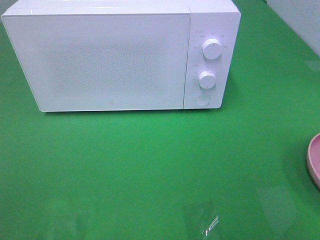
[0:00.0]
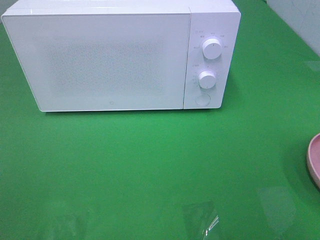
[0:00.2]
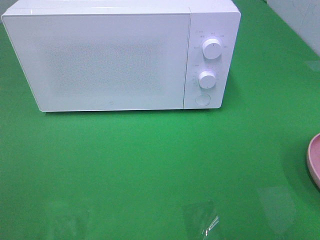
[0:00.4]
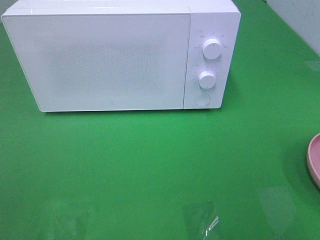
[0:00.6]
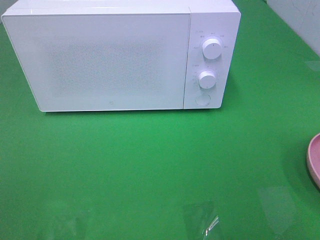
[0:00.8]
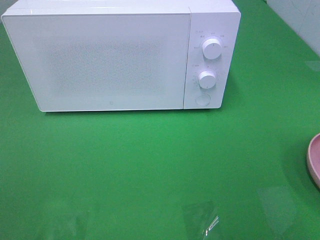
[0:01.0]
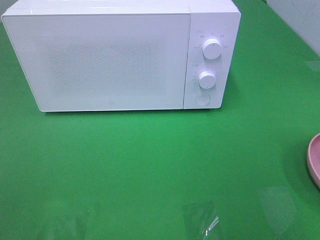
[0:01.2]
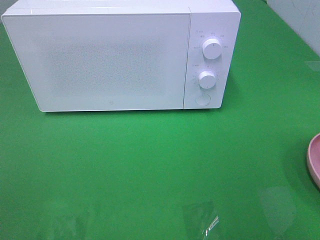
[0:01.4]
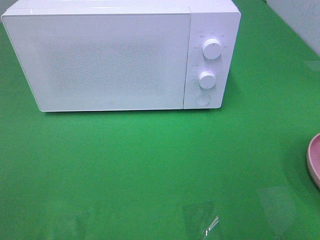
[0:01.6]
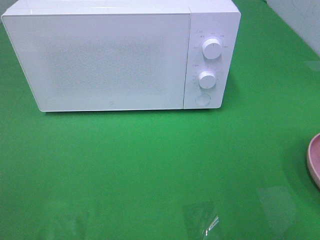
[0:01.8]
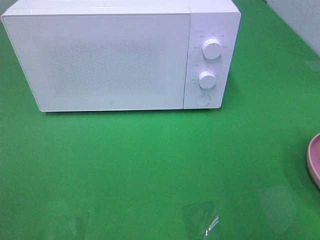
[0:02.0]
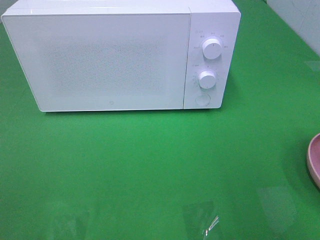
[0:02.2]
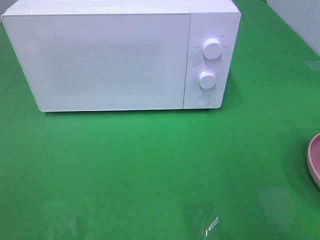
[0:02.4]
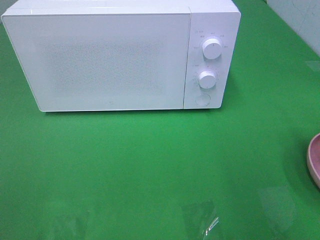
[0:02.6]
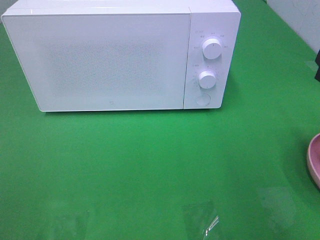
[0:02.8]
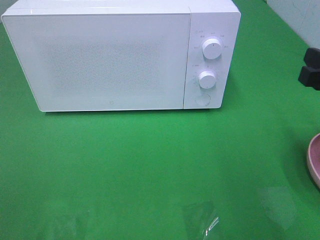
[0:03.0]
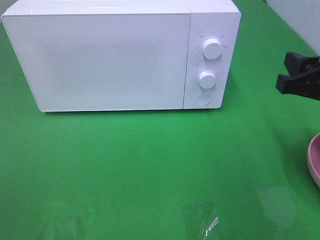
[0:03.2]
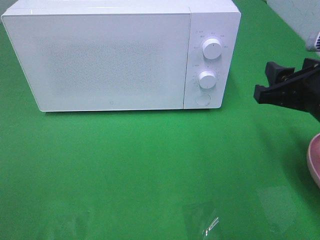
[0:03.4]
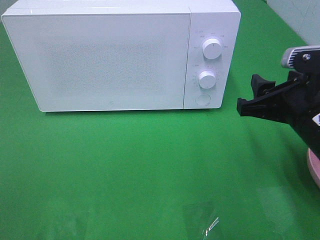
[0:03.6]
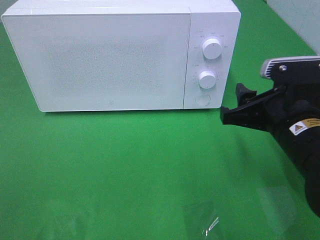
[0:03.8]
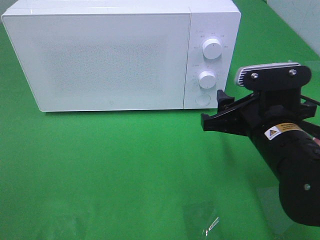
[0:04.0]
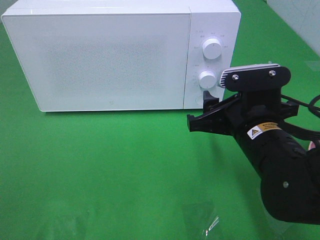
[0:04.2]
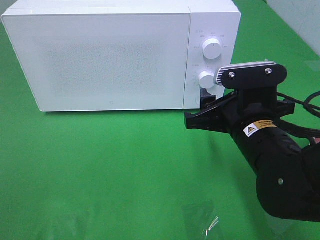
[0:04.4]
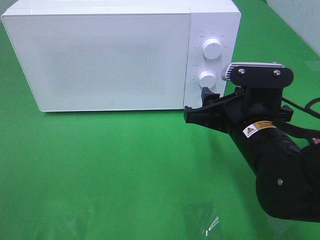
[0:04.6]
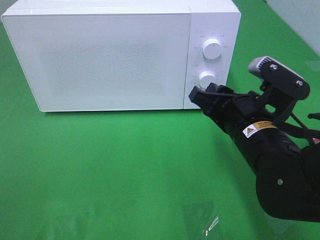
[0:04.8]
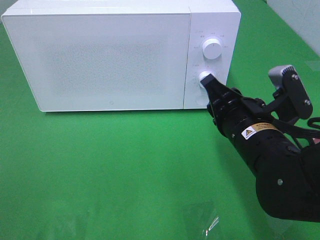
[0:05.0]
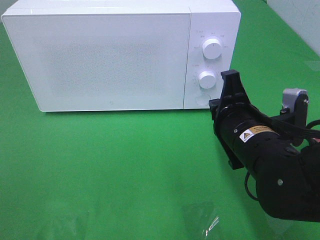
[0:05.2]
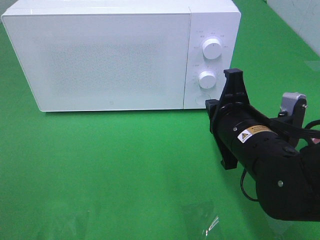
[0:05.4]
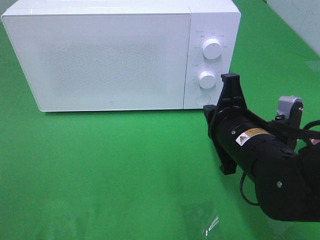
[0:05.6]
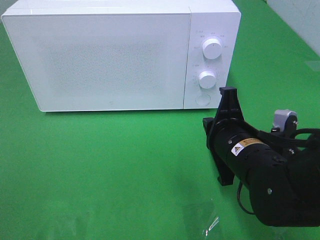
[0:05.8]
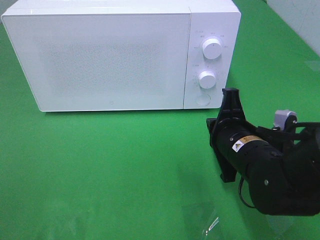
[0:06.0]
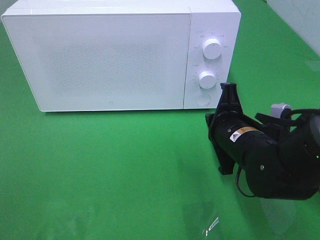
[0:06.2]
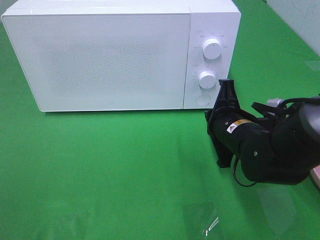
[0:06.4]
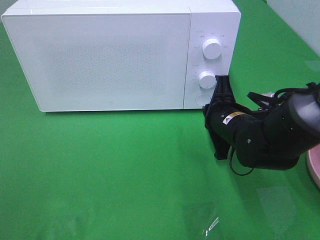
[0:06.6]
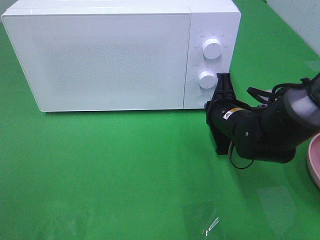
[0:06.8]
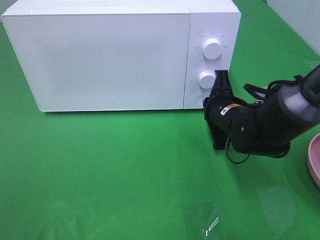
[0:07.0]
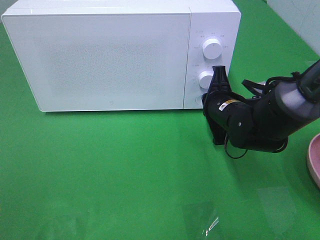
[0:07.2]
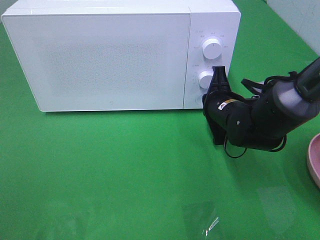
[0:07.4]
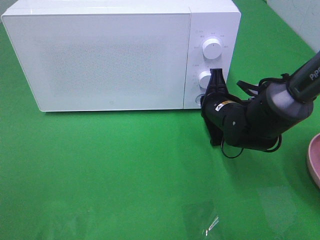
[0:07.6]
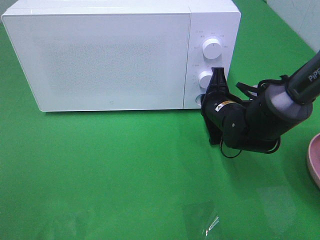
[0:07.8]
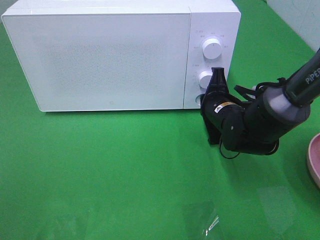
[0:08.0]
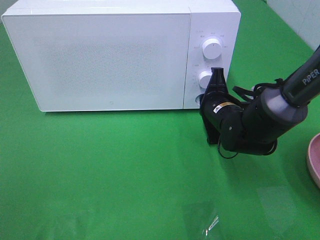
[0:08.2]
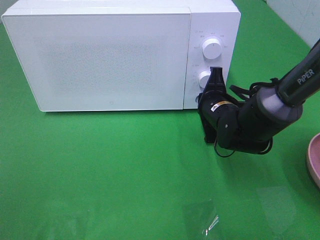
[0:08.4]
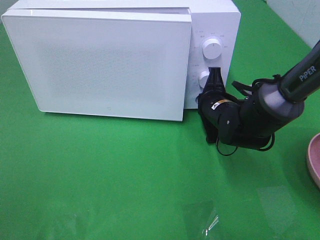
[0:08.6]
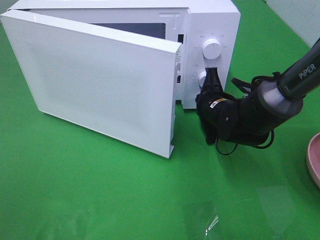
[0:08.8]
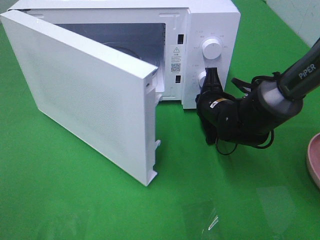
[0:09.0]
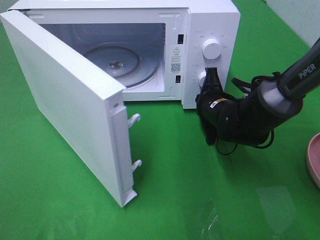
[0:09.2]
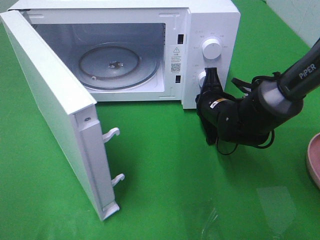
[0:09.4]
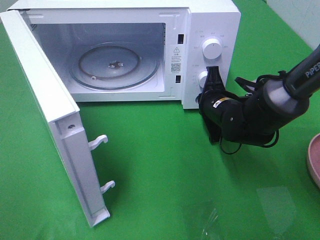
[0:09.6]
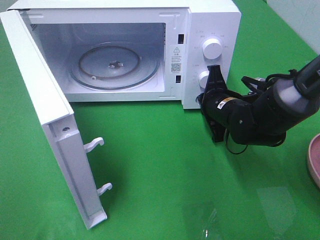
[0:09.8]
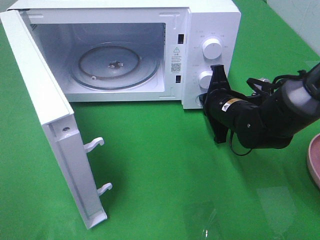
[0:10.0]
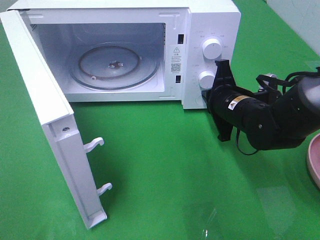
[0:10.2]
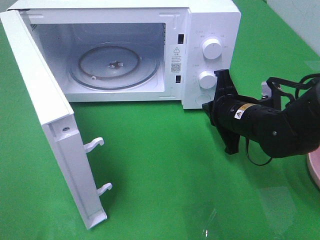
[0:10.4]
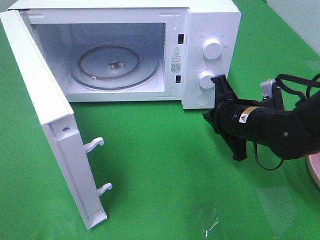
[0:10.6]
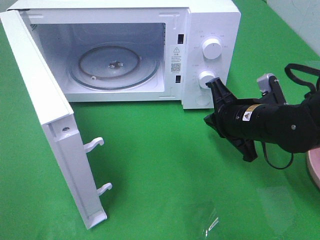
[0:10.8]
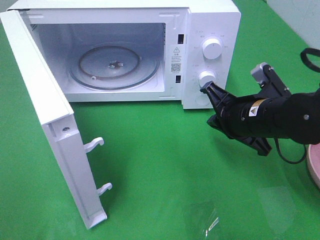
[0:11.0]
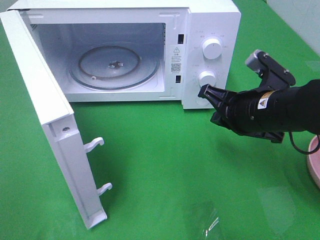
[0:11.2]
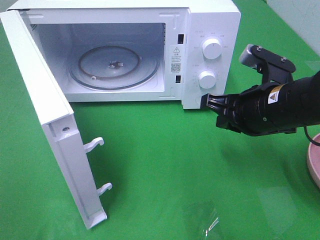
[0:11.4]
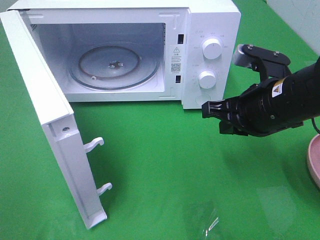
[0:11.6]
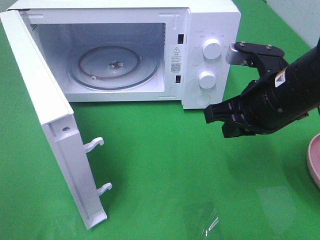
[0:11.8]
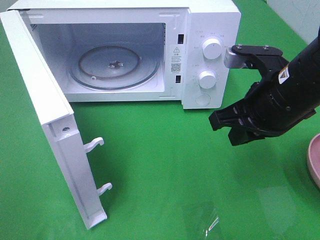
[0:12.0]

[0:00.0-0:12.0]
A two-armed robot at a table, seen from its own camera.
Task of the whole recording: Heat the burger.
Step, 0:00.0 to 0:10.0: Right hand: press the switch.
0:01.6 to 0:03.0: The right gripper goes some 15 cm forward.
0:03.0 to 0:04.4: The right gripper heads to the left and downward, covering roughly 15 cm.
0:04.4 to 0:06.0: The right gripper closes.
0:06.0 to 0:07.6: The right gripper moves forward, about 10 cm.
0:09.0 to 0:10.4: The right gripper travels backward by approximately 5 cm.
0:10.4 to 0:12.0: The right gripper heads upward and backward, covering about 10 cm.

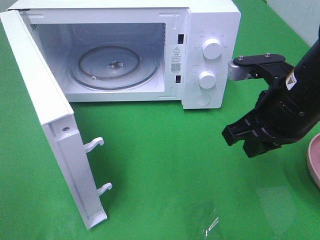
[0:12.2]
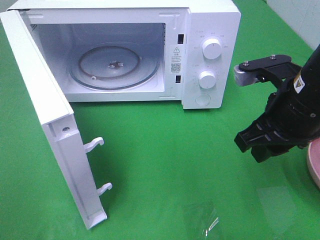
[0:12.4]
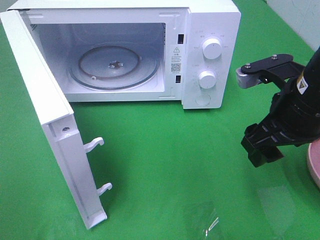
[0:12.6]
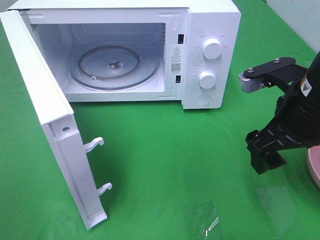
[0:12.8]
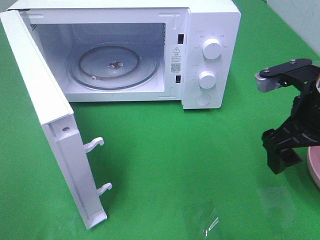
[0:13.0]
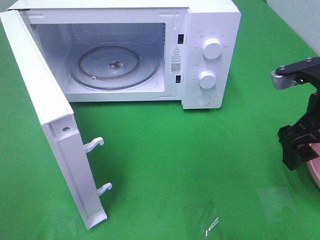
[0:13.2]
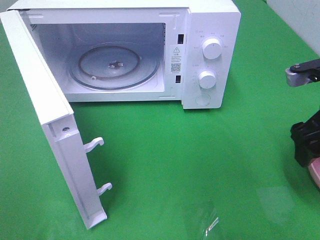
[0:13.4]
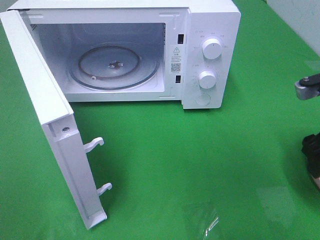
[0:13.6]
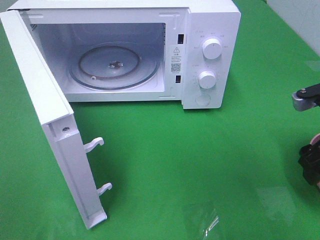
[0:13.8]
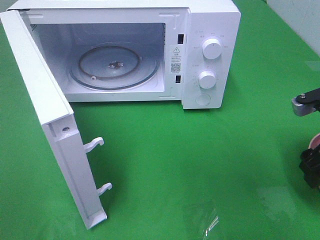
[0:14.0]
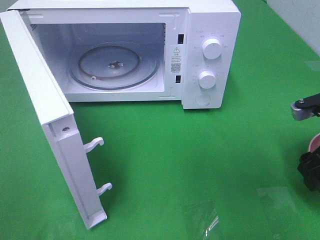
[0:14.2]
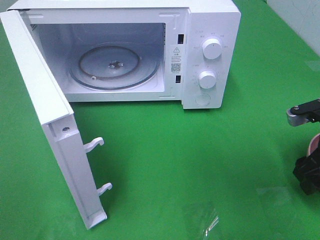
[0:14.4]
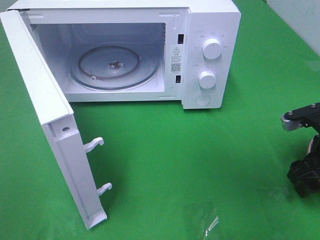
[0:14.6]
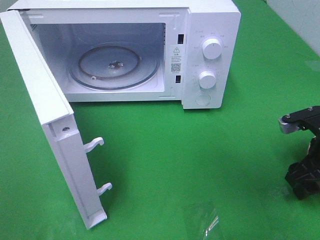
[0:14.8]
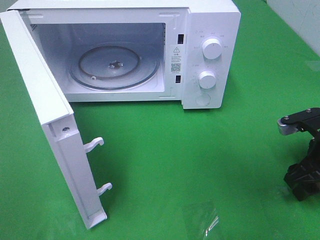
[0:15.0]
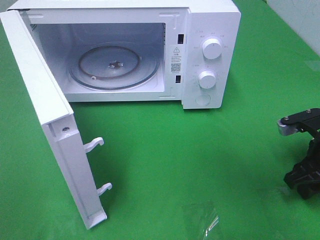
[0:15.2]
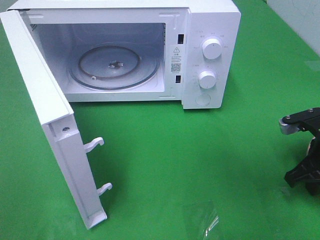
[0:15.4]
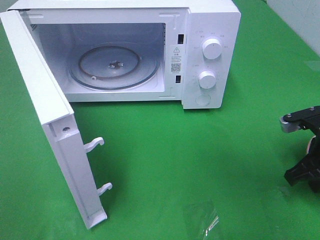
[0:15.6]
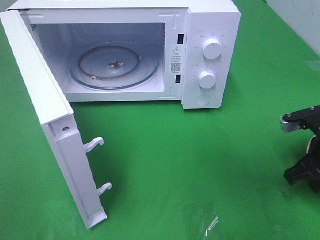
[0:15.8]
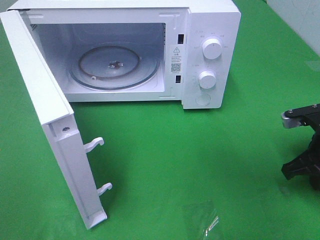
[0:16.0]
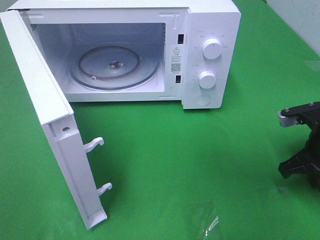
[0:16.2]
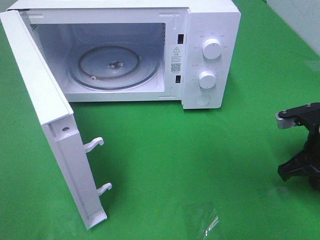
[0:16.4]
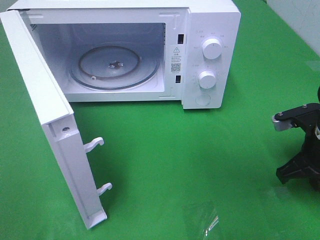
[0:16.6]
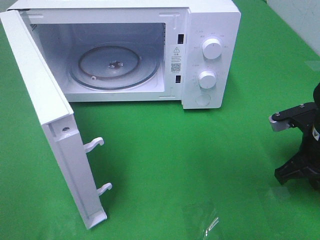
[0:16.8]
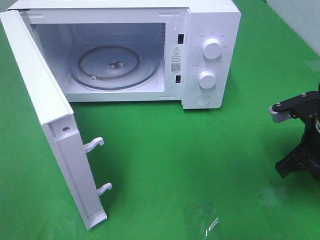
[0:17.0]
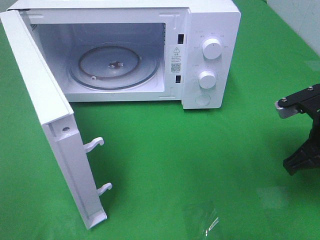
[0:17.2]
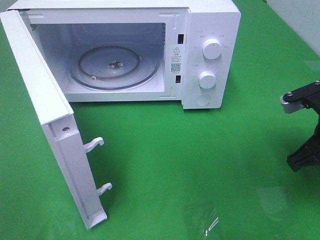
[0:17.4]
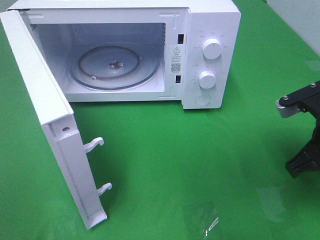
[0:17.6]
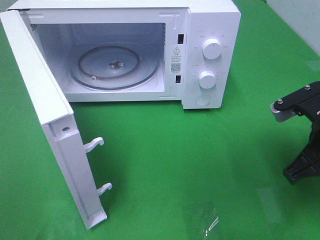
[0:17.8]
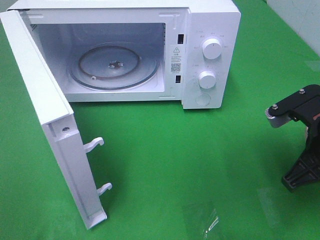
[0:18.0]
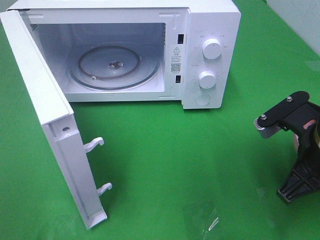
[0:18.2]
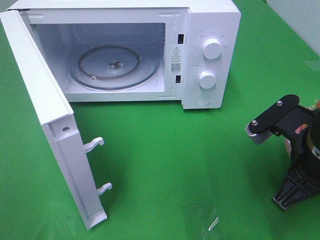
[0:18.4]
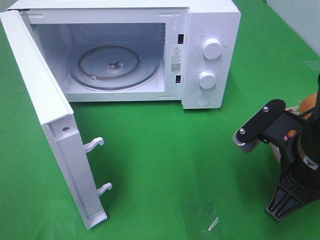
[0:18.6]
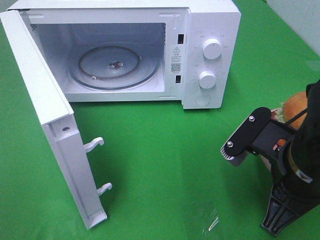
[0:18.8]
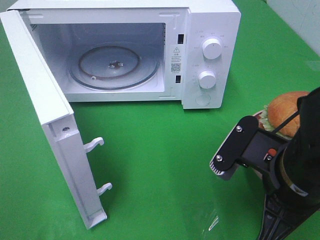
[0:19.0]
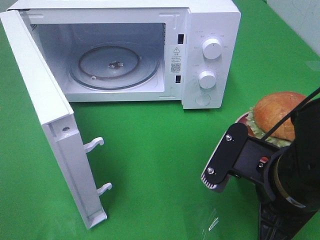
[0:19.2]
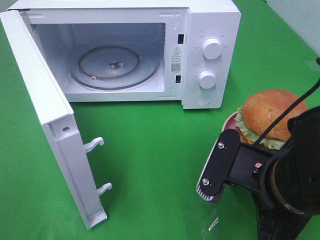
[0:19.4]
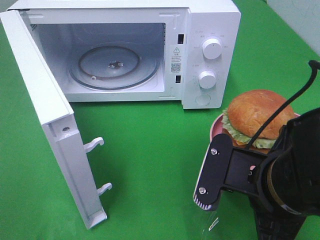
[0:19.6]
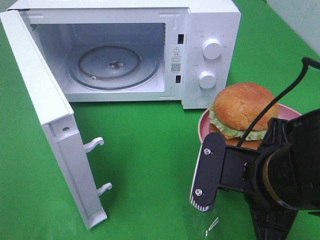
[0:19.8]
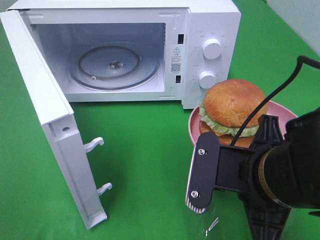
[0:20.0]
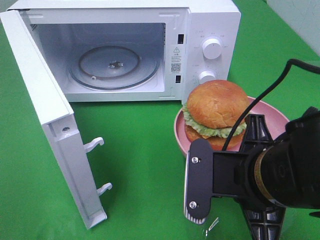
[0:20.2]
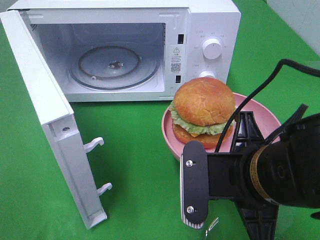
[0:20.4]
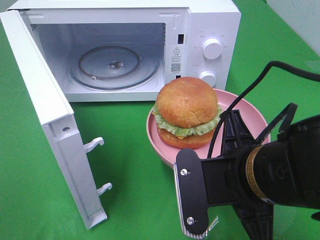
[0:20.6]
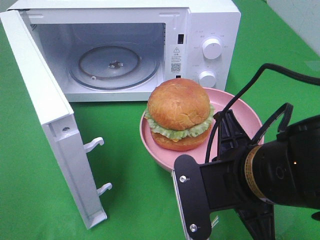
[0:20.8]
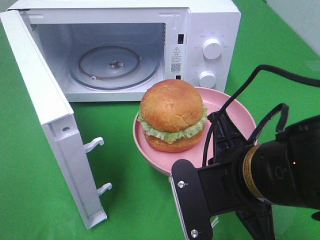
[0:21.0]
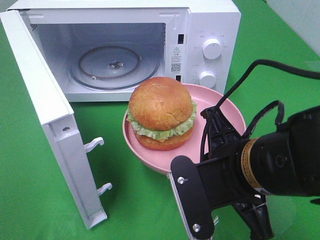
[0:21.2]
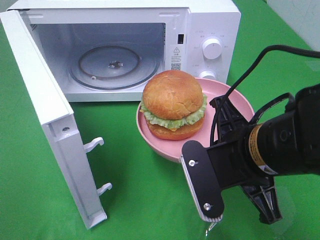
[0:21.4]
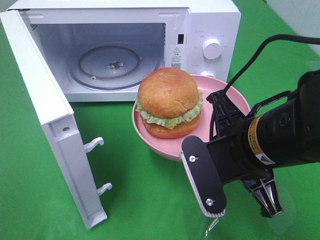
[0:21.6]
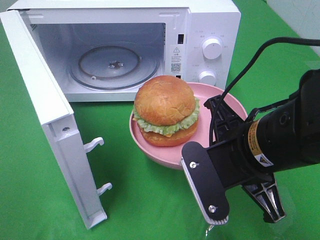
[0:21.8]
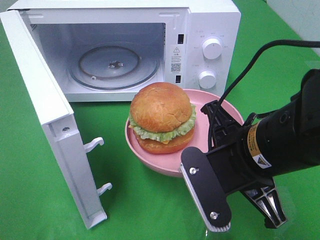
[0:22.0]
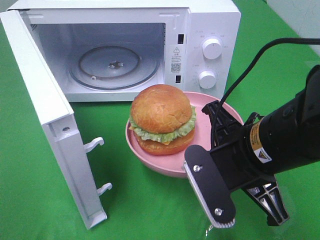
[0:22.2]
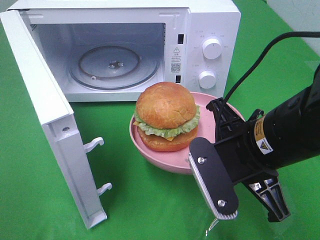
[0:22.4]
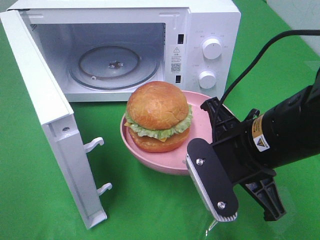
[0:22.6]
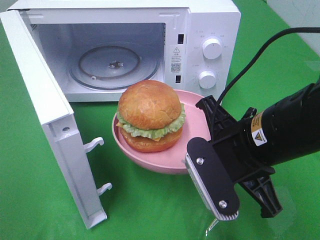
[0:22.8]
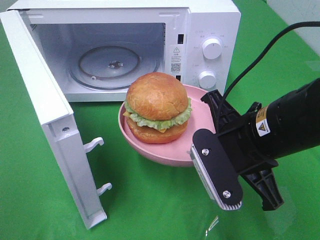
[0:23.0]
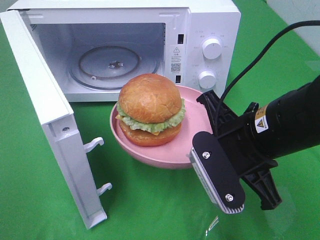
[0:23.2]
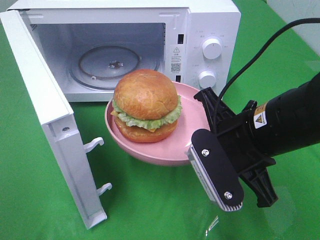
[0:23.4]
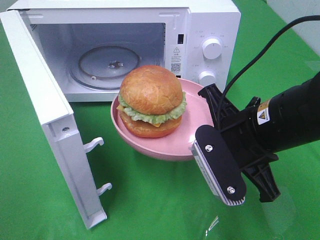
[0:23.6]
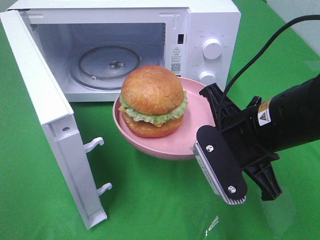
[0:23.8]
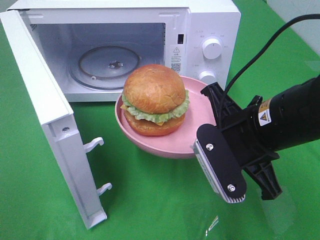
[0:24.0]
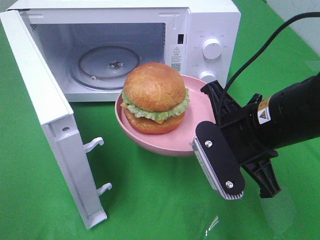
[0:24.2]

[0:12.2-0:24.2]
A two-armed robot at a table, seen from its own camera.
Task of the whole recording: Heat the burger.
Step, 0:12.2 to 0:16.0: Right hand: grab the plate with the hamburger.
0:12.2 to 0:13.8: The right gripper shifts approximately 10 cm to the right, and opens its fingers.
0:13.8 to 0:15.2: The right gripper heads downward, covering some 5 cm.
0:15.2 to 0:16.6: The right gripper closes up.
0:16.6 to 0:18.2: The right gripper is displaced upward, backward and to the left by some 10 cm.
0:18.2 to 0:19.8: The right gripper heads to the left and backward, covering approximately 10 cm.
0:21.2 to 0:22.6: The grippers move only a little.
0:22.6 to 0:24.2: The grippers move only a little.
